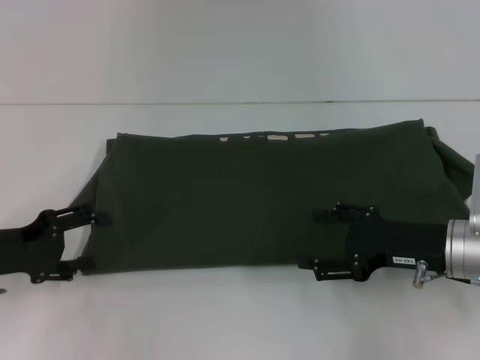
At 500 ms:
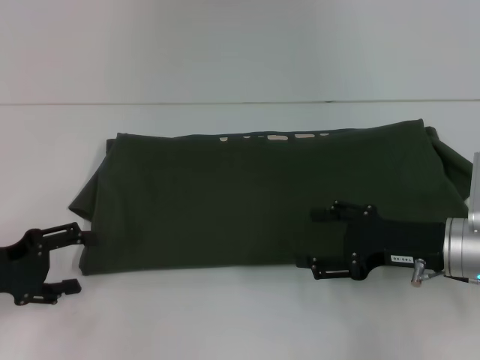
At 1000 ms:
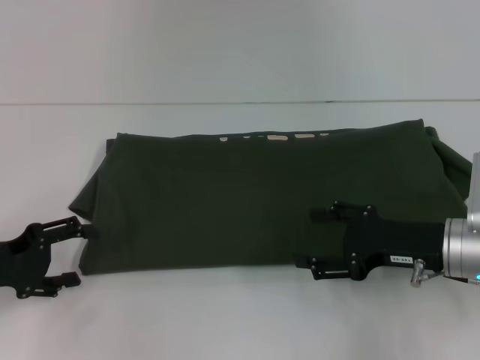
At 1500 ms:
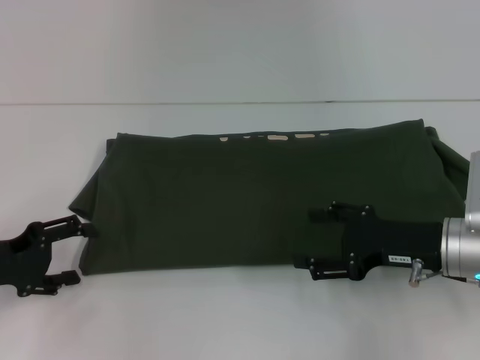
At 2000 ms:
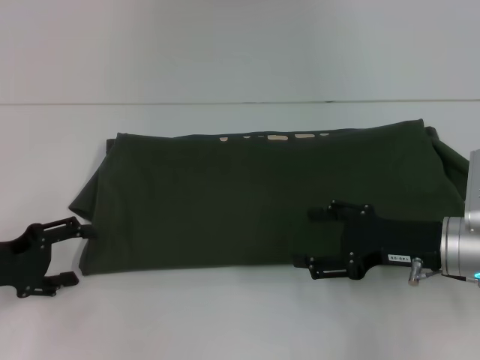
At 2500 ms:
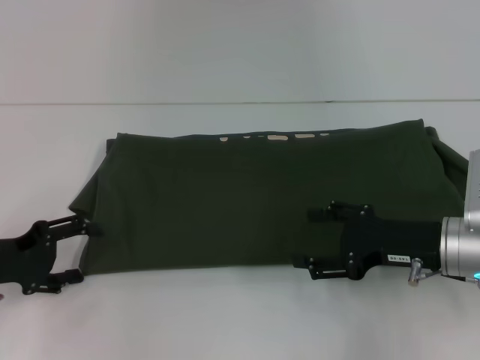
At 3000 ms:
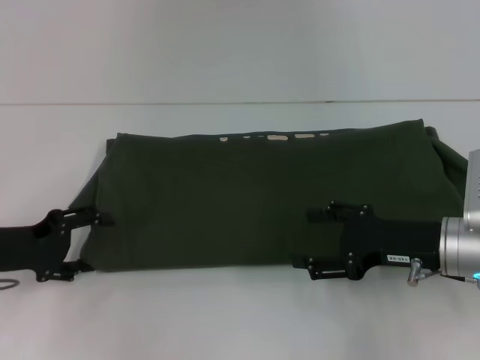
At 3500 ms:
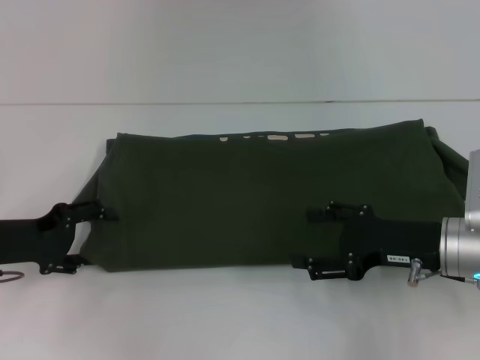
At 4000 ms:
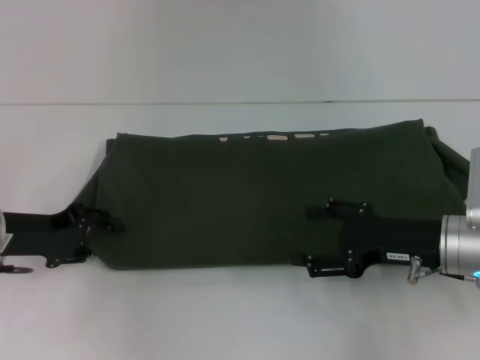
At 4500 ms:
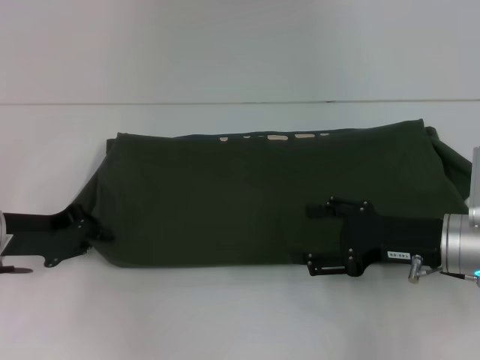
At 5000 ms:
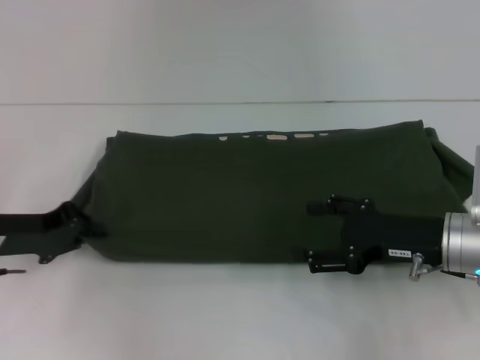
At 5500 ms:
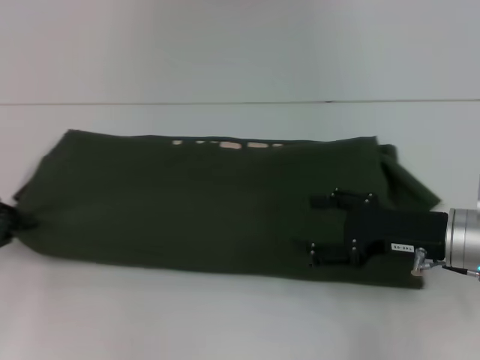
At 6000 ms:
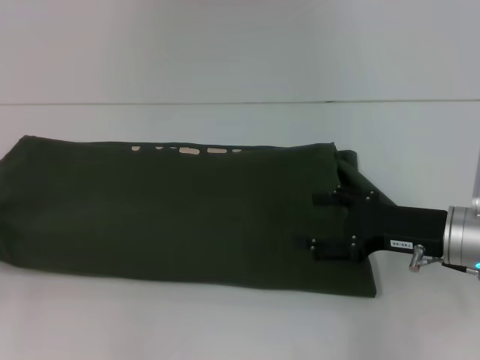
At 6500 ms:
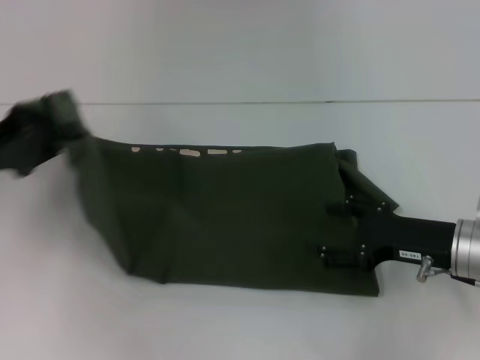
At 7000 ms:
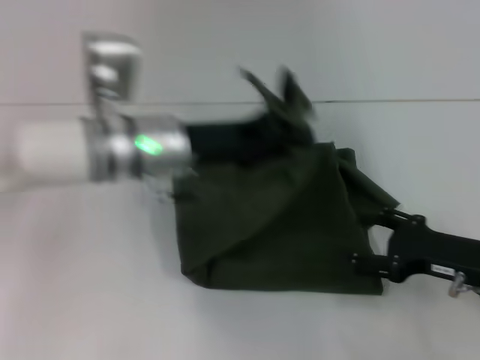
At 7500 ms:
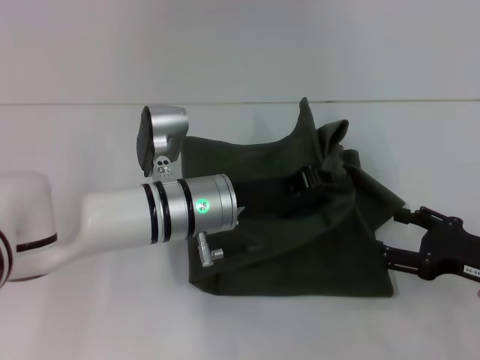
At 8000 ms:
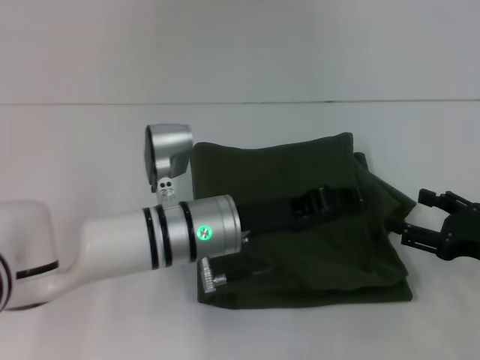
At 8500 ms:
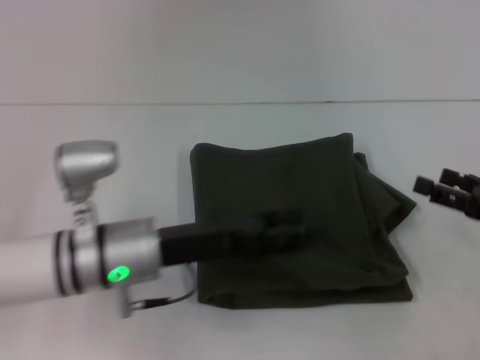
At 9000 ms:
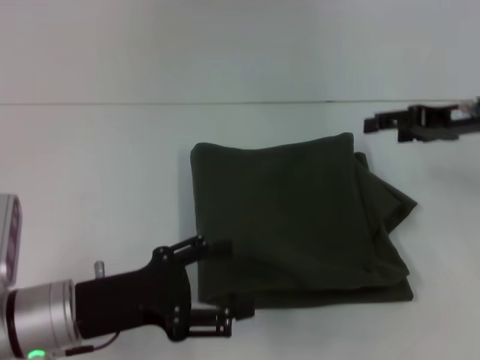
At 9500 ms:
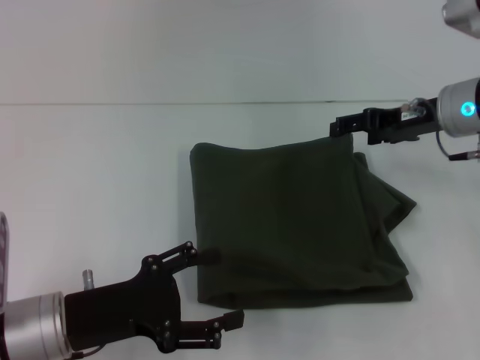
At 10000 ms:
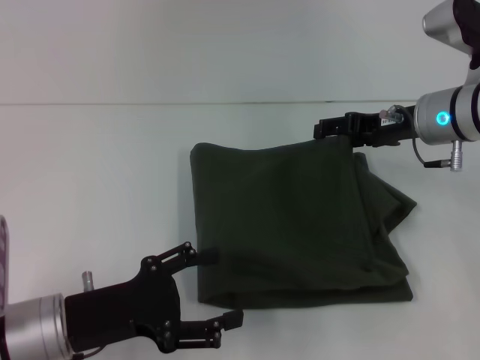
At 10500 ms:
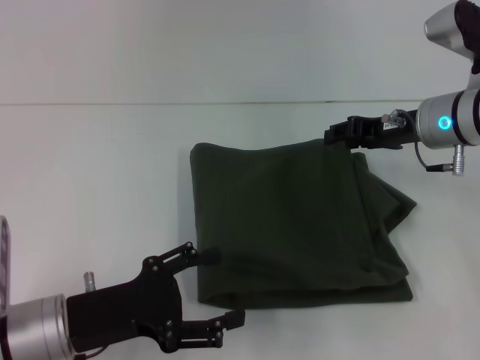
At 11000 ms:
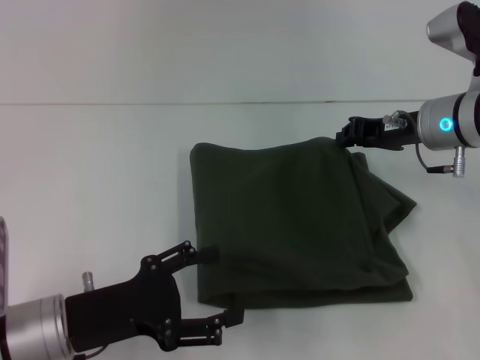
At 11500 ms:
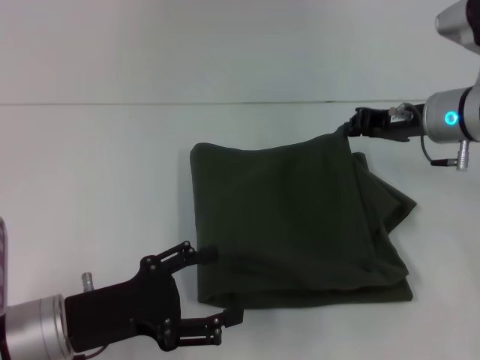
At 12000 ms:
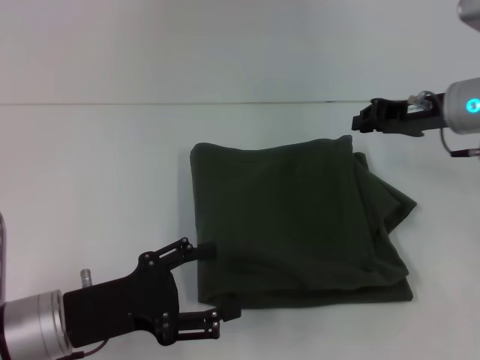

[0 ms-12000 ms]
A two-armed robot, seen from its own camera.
Step, 0 ms to 8000 ms: Fold the clothes with your left hand.
0 ms to 2000 ms: The grippers stay close to where they were, moving slightly.
2000 ms to 4000 ms: The left gripper ends up approximately 5 cm from where it was.
4000 ms to 6000 ms: The left gripper heads to the left and backward, covering about 10 cm, and closes its fingers.
6000 ms to 8000 ms: The left gripper moves to the right, about 35 cm. Meanwhile the right gripper is displaced to the right by roughly 10 cm.
8000 ms to 10000 ms: The right gripper is displaced forward, to the left and upward by some 20 cm. The left gripper goes some 15 cm to the left and backward, and opens up.
10000 ms to 12000 ms: The right gripper closes its fingers.

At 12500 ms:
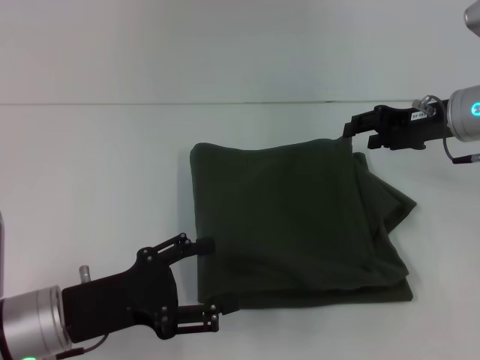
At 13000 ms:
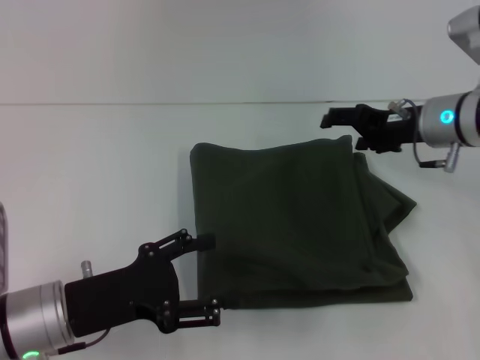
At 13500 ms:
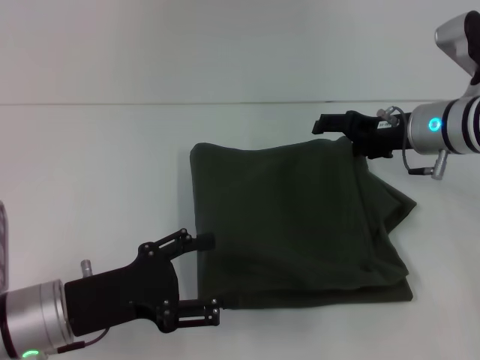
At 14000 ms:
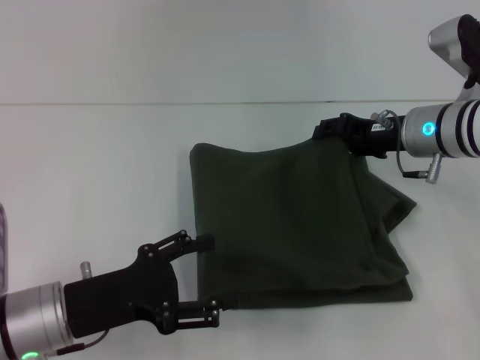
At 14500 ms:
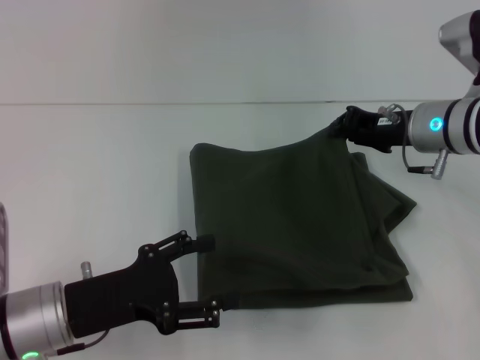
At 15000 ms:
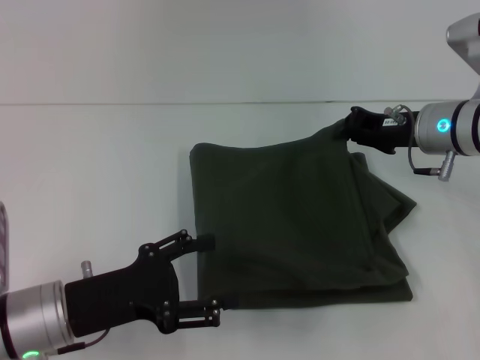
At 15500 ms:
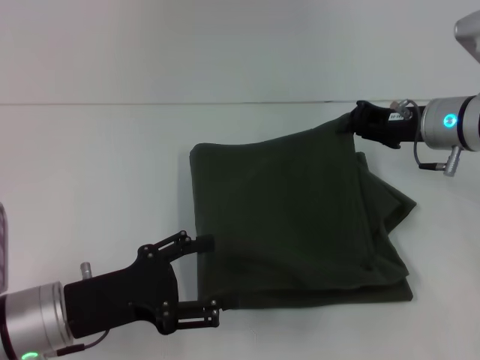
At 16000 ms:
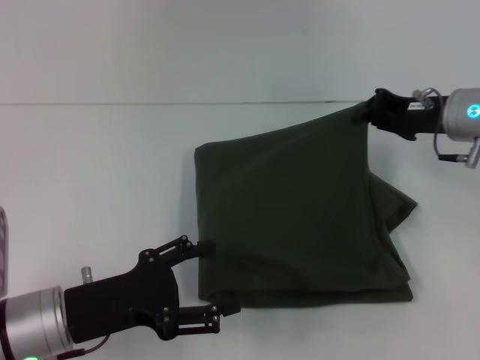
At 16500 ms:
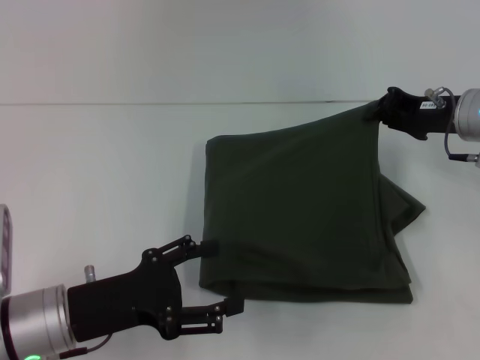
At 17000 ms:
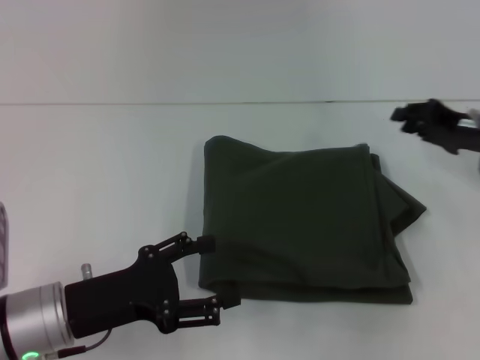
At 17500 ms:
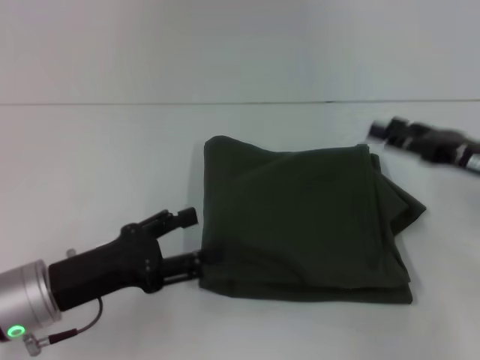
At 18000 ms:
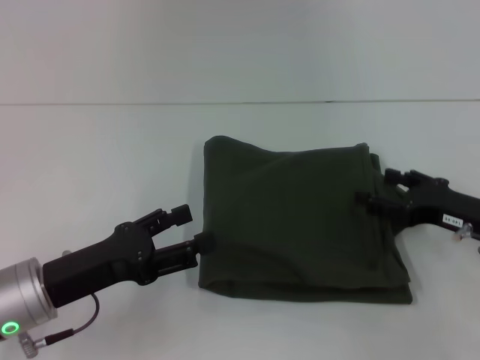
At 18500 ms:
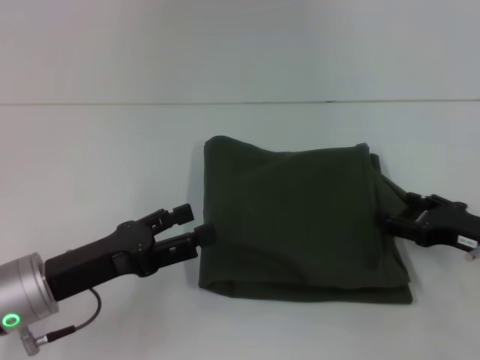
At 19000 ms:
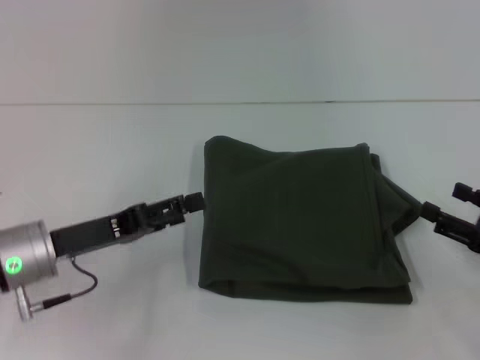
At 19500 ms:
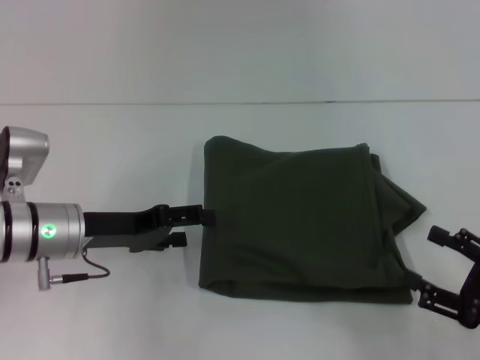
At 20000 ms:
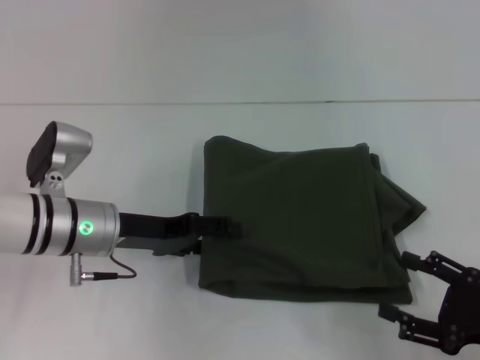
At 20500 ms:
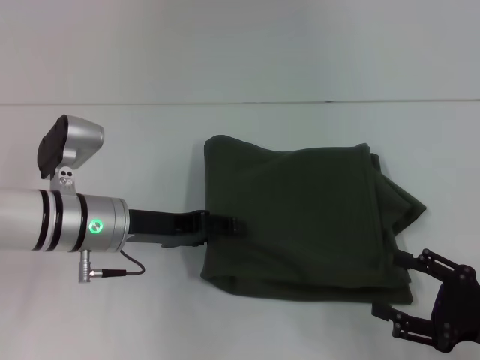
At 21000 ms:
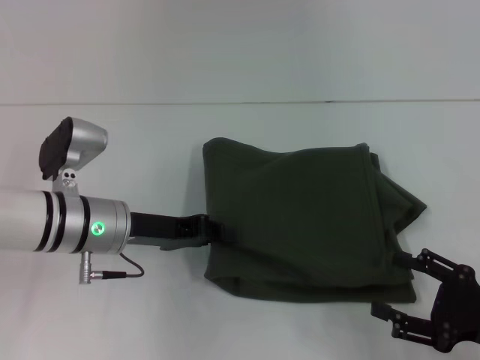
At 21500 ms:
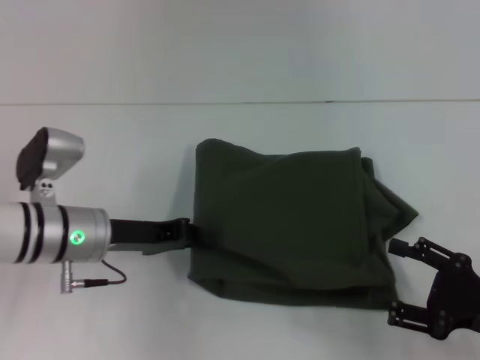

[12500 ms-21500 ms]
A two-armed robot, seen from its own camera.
12500 ms to 14500 ms: The right gripper closes its fingers.
14500 ms to 17000 ms: The right gripper is displaced to the right by approximately 10 cm.
17000 ms to 19500 ms: The left gripper goes about 10 cm forward. Meanwhile the right gripper goes roughly 20 cm backward, and opens.
19500 ms to 21500 ms: The left gripper closes.

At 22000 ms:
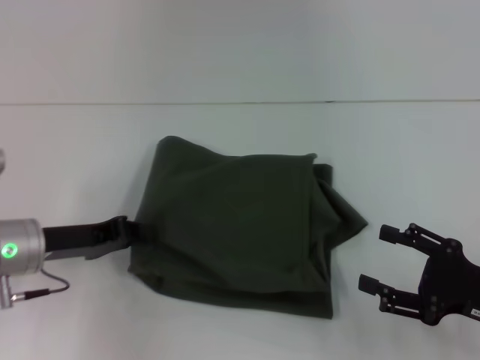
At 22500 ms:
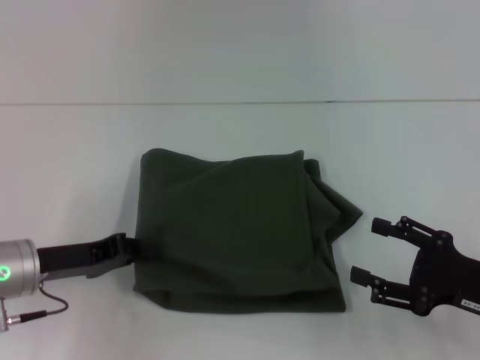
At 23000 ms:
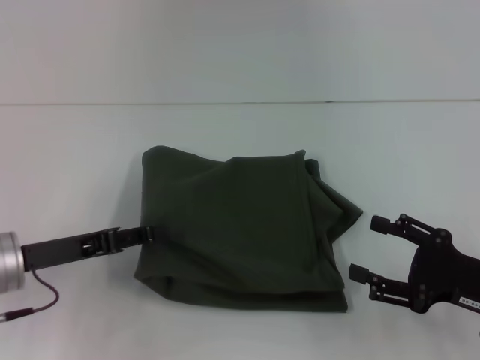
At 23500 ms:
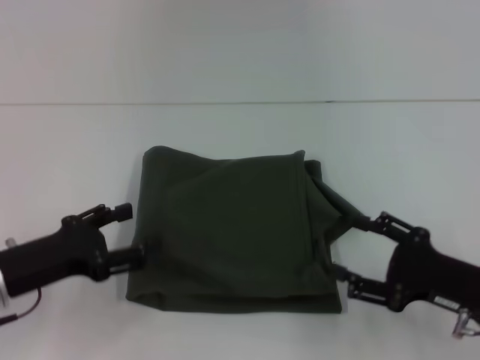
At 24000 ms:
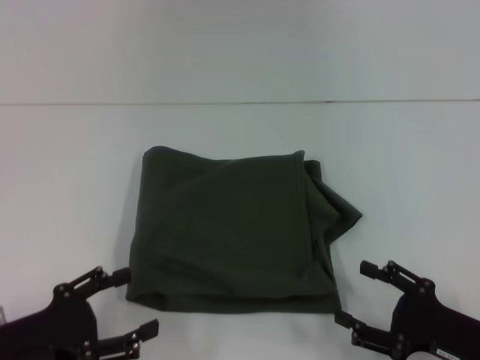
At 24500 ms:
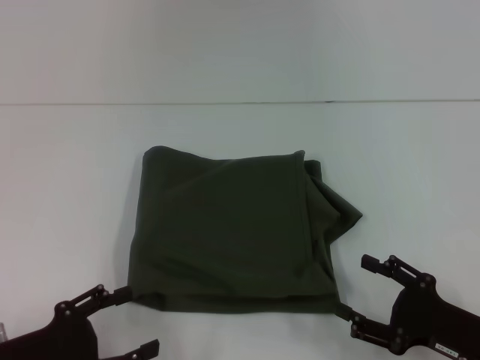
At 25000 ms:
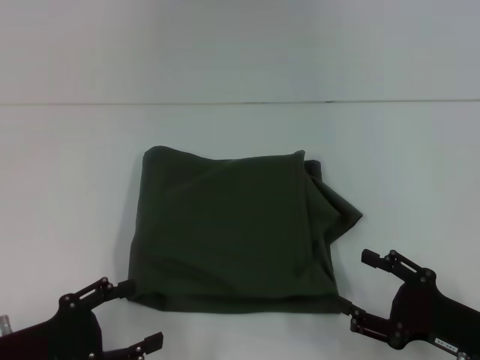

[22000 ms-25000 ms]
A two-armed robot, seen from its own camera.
22000 ms to 23500 ms: The left gripper travels backward by roughly 5 cm, and opens up.
23500 ms to 25000 ms: The left gripper travels backward by roughly 5 cm, while the right gripper shifts by approximately 5 cm.

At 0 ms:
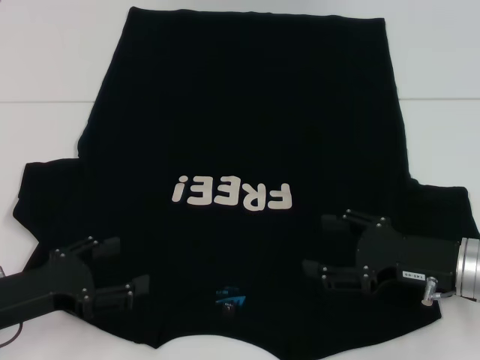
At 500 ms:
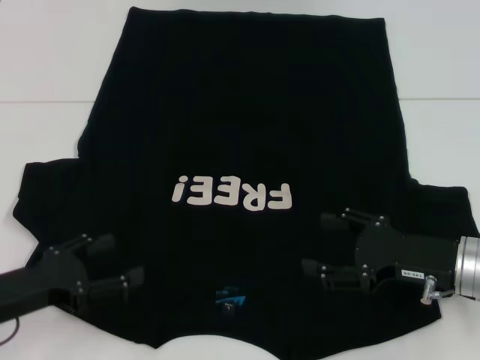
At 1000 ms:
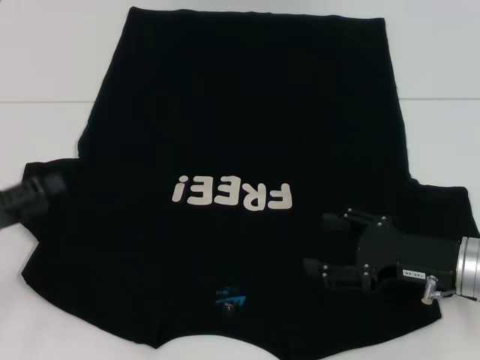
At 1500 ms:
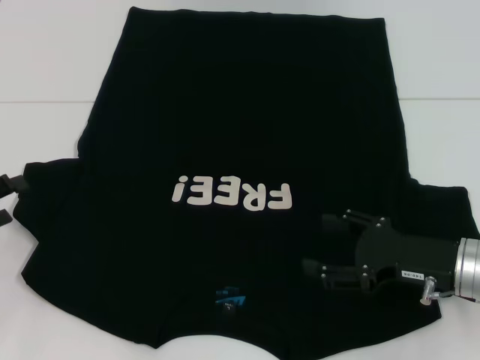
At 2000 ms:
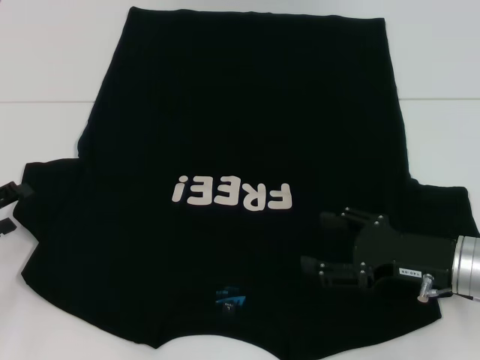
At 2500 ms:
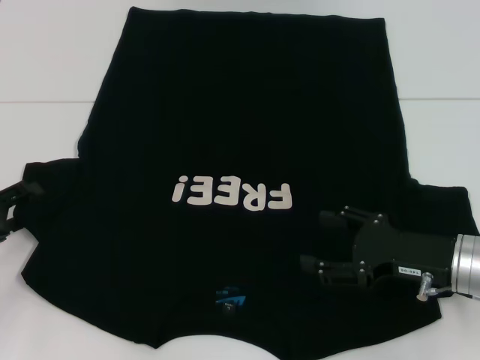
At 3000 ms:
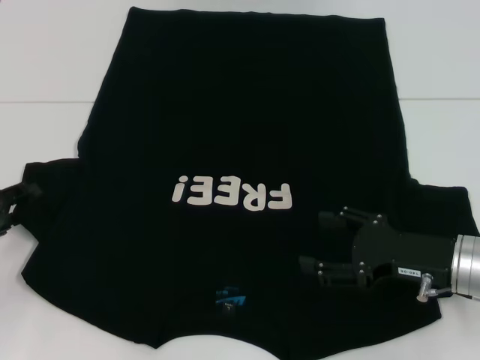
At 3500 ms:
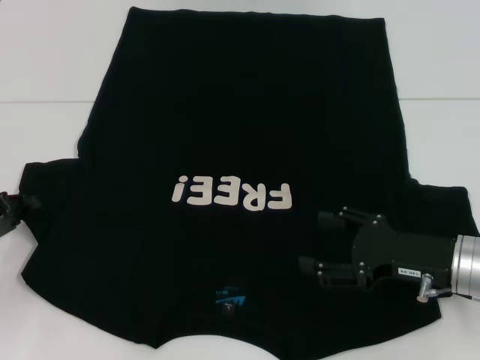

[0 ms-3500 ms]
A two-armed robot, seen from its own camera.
0 ms to 2000 ms: The left gripper goes some 10 cm to the left.
